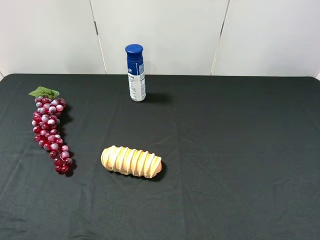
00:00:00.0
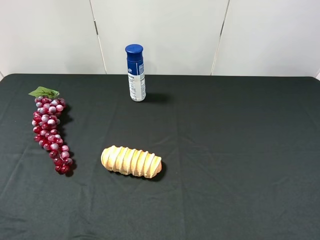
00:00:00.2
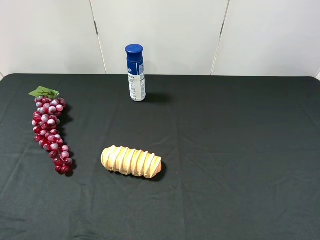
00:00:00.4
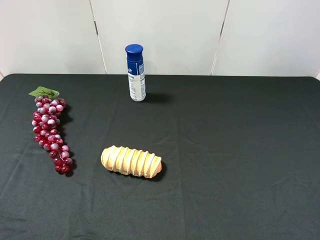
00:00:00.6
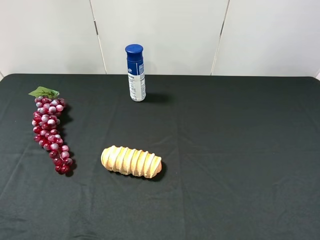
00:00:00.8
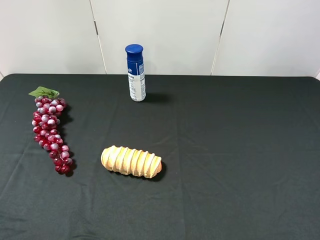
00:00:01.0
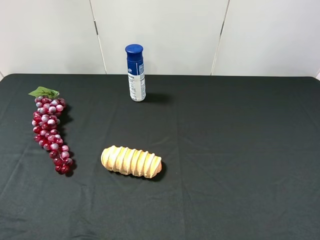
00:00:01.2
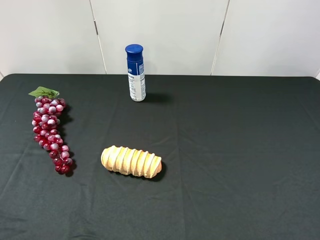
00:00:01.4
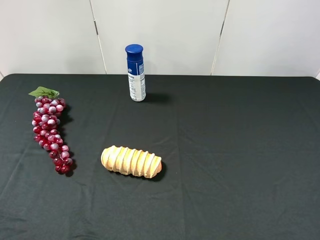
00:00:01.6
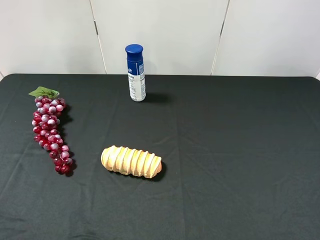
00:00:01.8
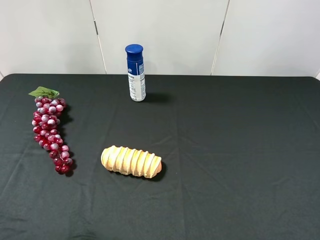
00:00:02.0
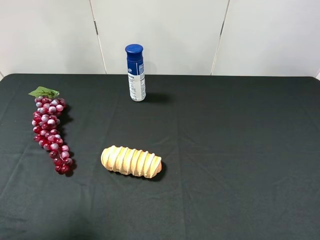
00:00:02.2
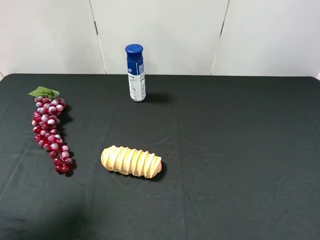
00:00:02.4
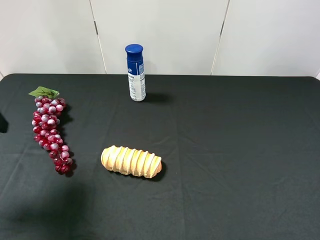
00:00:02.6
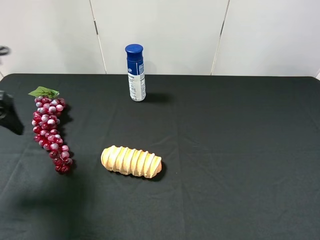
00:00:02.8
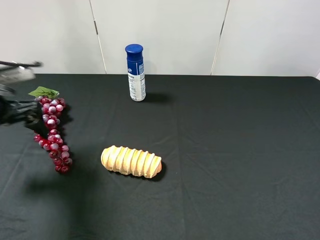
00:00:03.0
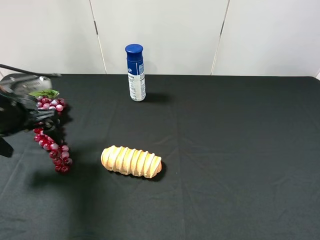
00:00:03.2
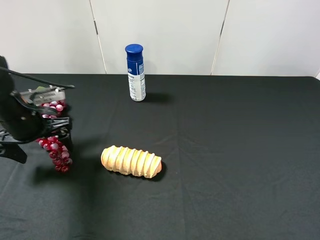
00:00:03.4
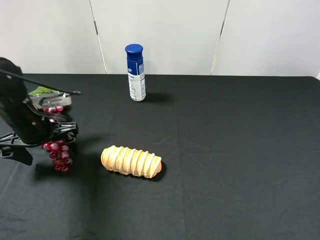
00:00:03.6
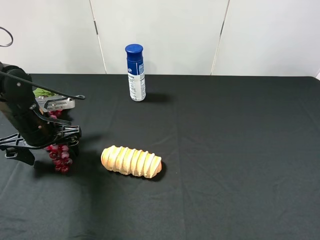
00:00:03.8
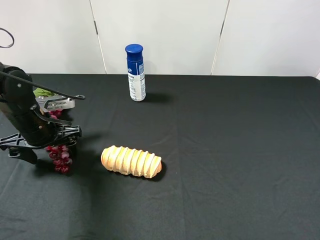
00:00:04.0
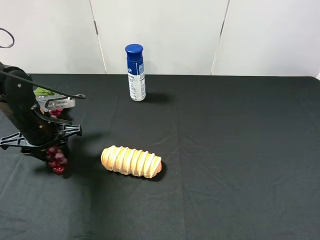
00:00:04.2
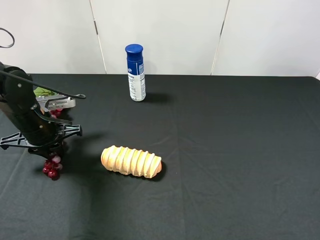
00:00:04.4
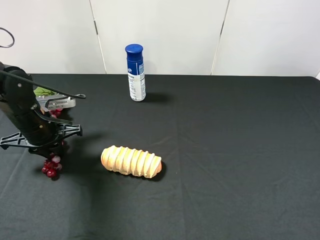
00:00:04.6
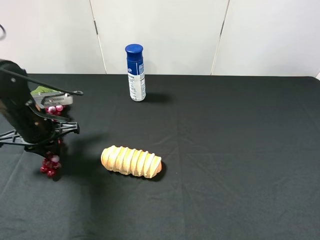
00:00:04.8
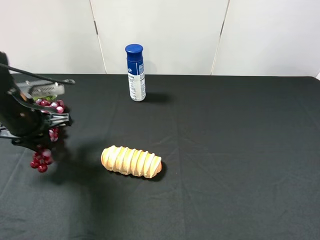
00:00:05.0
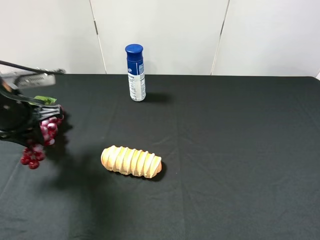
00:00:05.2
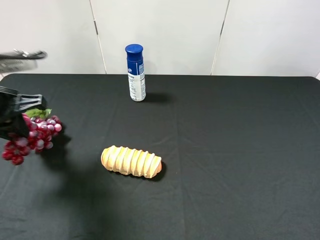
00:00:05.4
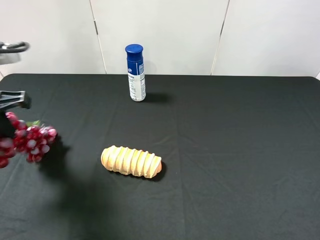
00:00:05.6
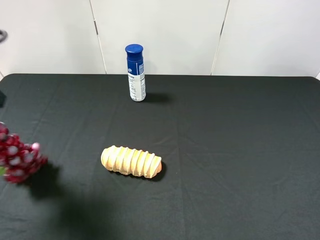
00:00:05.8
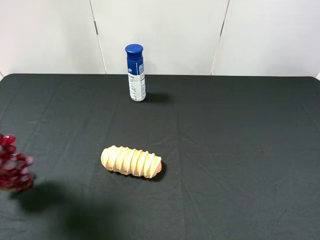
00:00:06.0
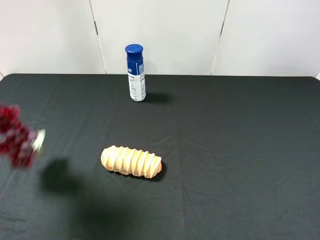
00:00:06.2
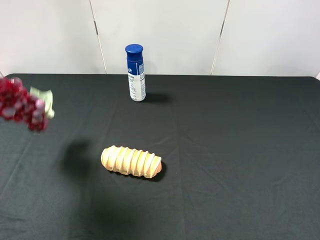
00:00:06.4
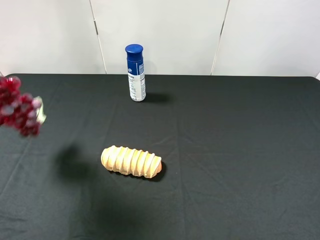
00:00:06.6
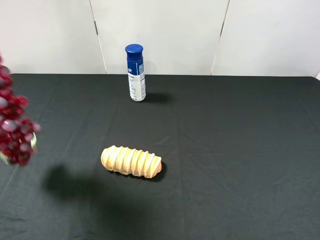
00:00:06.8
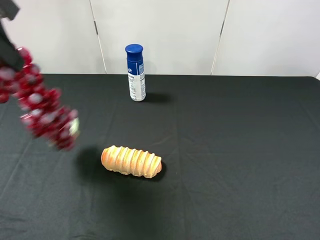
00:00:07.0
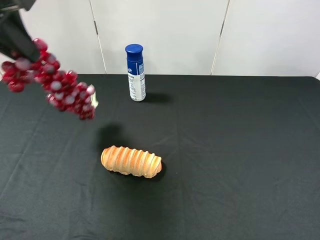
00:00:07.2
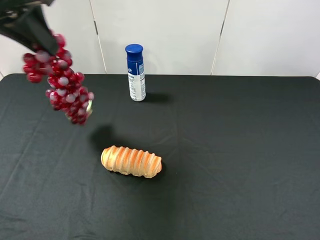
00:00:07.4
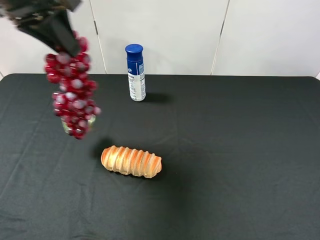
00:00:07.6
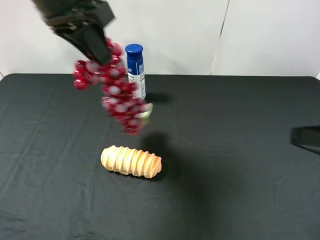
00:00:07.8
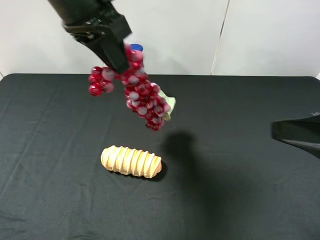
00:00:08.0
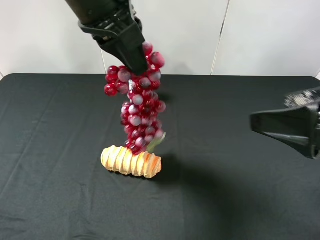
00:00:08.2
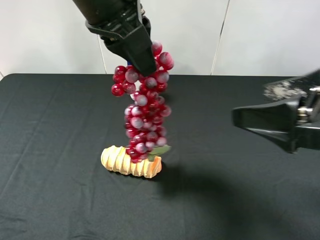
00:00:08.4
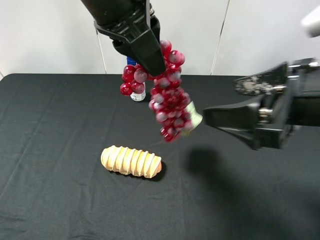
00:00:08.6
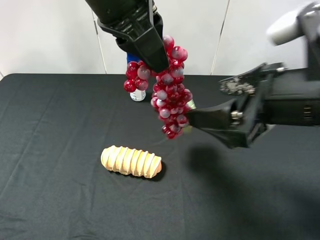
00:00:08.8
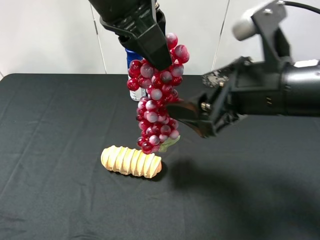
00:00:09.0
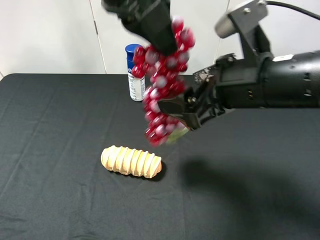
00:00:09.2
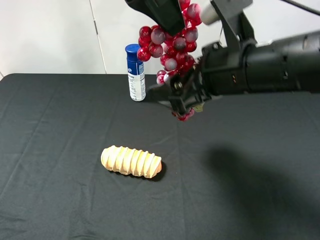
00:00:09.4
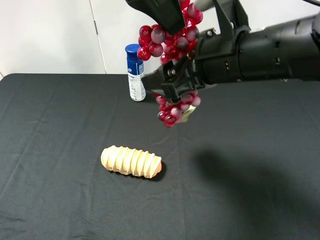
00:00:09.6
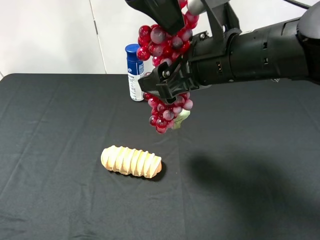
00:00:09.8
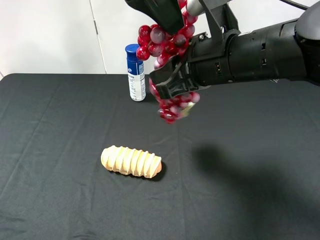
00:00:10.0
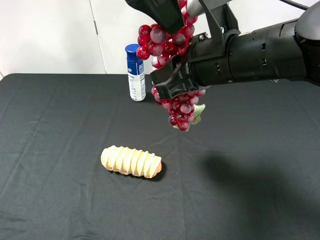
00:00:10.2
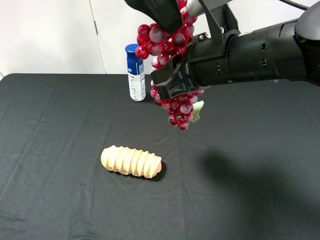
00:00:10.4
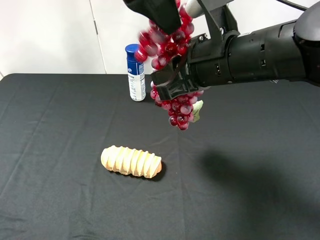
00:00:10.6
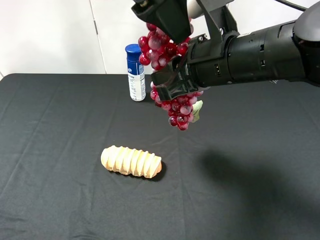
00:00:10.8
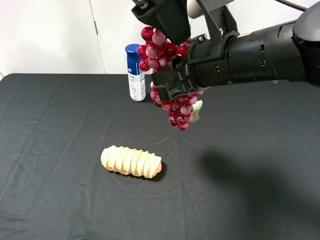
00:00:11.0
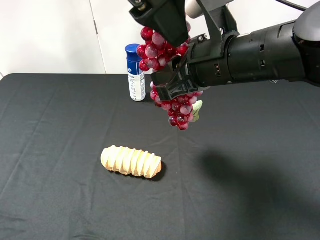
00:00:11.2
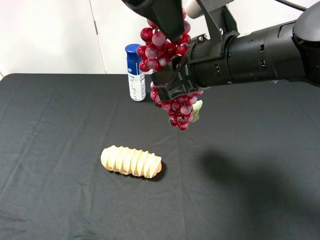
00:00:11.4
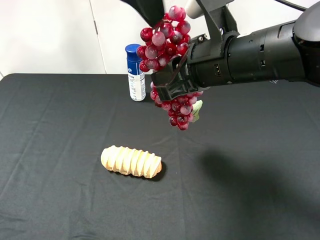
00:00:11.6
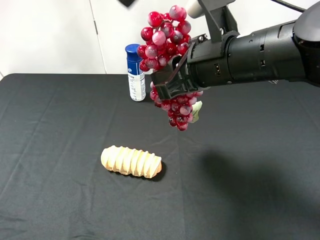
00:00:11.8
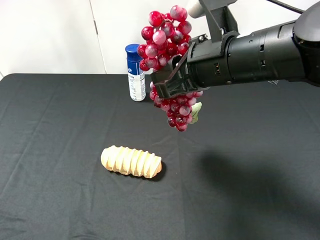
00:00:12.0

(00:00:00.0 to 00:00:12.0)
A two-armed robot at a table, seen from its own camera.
Task of the whole recording: use the left gripper to pick up the item and transfer it from the left gripper to the right gripper.
00:00:01.6 - 00:00:03.0: The left gripper shifts roughly 25 cm forward and downward.
00:00:03.0 - 00:00:04.4: The left gripper heads downward, covering about 10 cm, and closes.
00:00:04.4 - 00:00:06.0: The left gripper moves upward and backward, some 25 cm.
00:00:06.0 - 00:00:07.6: The right gripper shifts by about 5 cm. Meanwhile the left gripper moves to the right and forward, roughly 15 cm.
00:00:07.6 - 00:00:09.0: The right gripper heads to the left and forward, covering approximately 20 cm; the left gripper moves to the right, roughly 10 cm.
00:00:09.0 - 00:00:10.4: The right gripper moves roughly 5 cm, and closes up.
00:00:10.4 - 00:00:12.0: The left gripper moves to the left and upward, some 10 cm, and opens up.

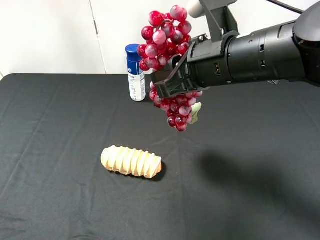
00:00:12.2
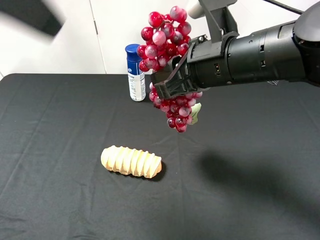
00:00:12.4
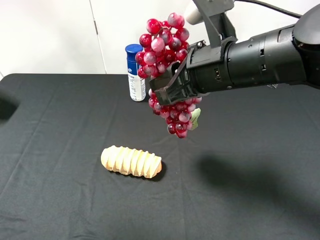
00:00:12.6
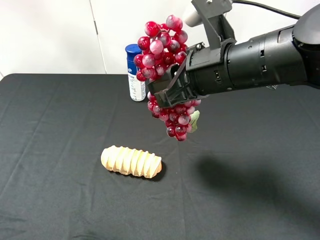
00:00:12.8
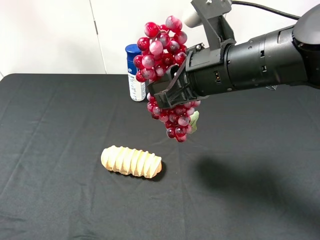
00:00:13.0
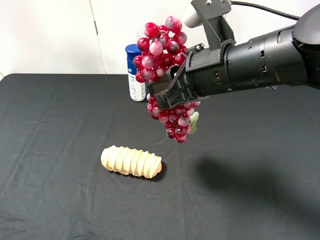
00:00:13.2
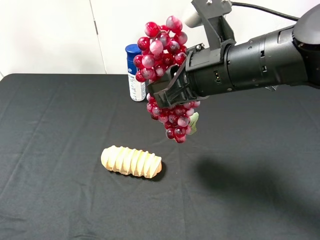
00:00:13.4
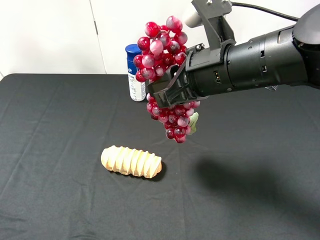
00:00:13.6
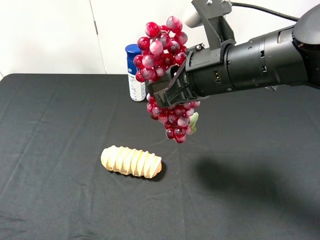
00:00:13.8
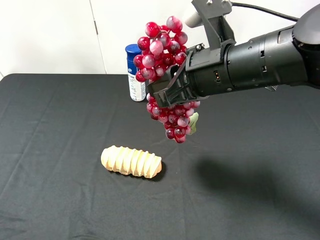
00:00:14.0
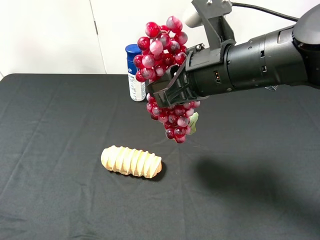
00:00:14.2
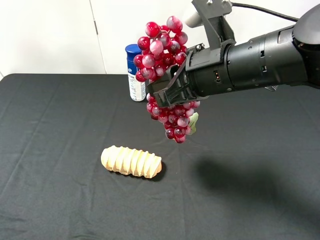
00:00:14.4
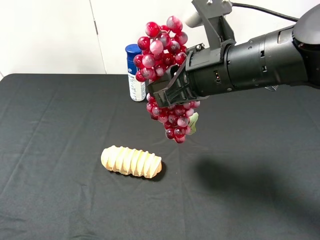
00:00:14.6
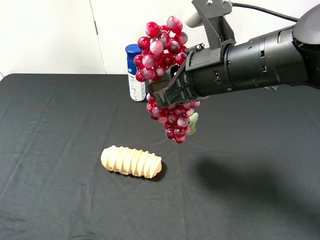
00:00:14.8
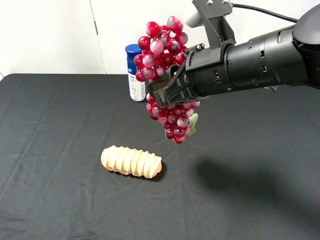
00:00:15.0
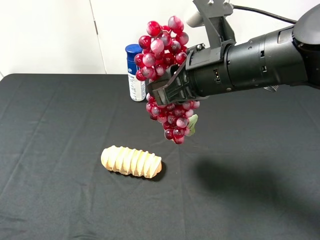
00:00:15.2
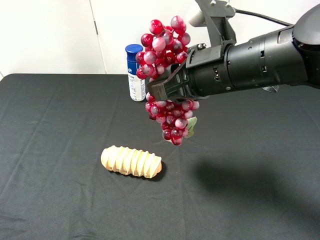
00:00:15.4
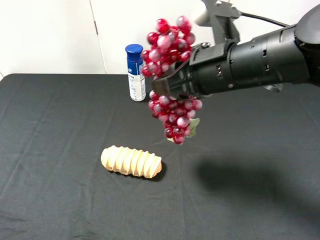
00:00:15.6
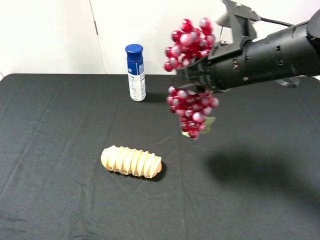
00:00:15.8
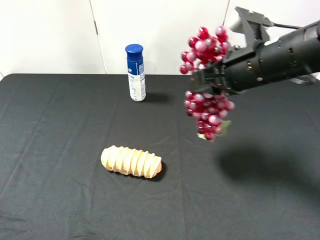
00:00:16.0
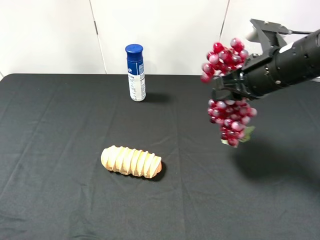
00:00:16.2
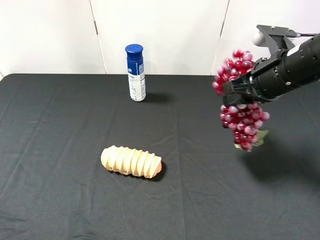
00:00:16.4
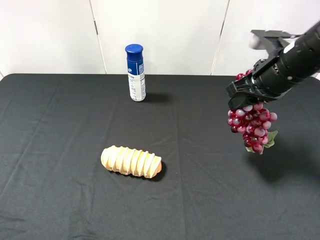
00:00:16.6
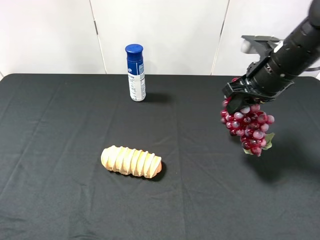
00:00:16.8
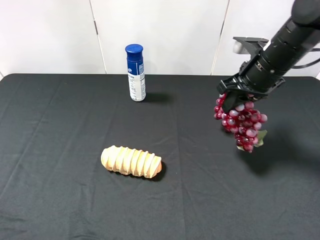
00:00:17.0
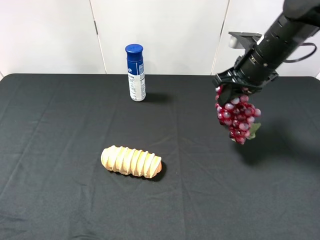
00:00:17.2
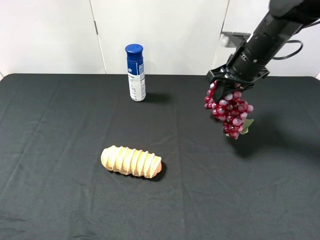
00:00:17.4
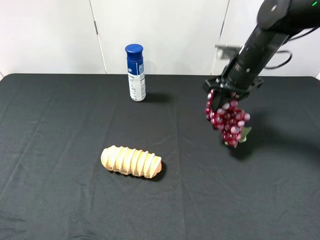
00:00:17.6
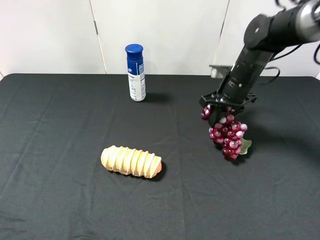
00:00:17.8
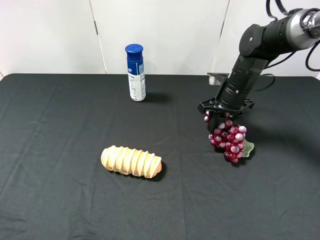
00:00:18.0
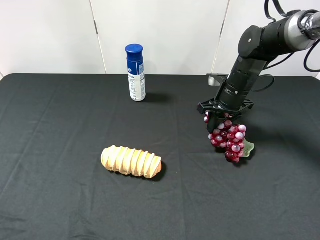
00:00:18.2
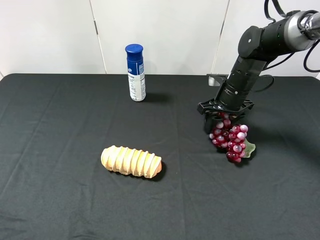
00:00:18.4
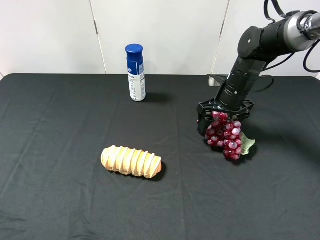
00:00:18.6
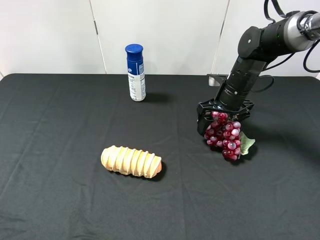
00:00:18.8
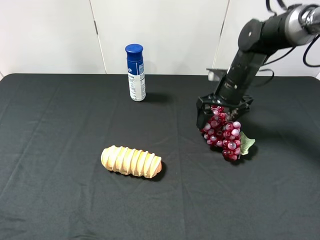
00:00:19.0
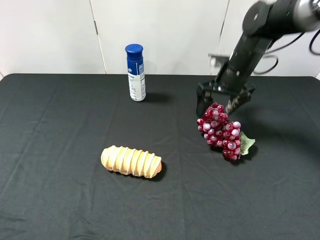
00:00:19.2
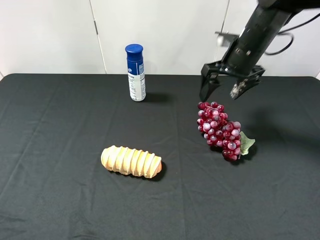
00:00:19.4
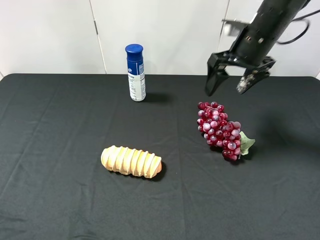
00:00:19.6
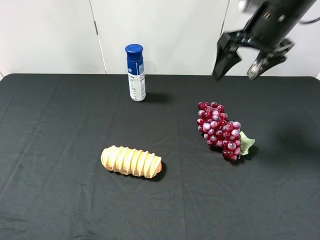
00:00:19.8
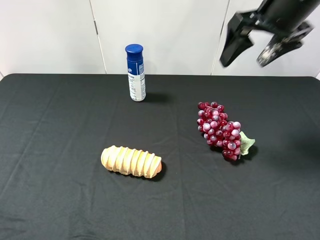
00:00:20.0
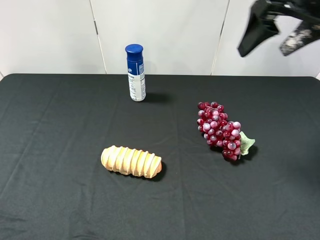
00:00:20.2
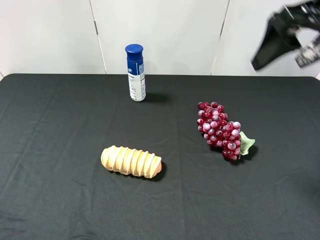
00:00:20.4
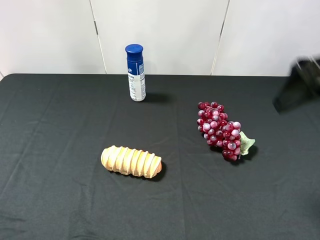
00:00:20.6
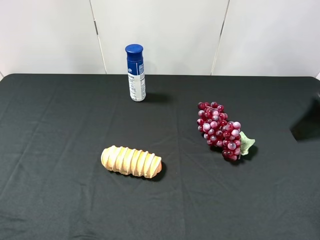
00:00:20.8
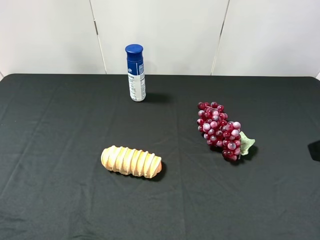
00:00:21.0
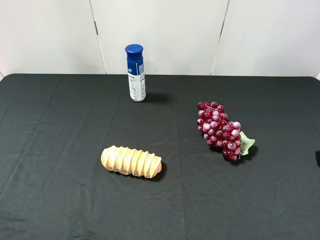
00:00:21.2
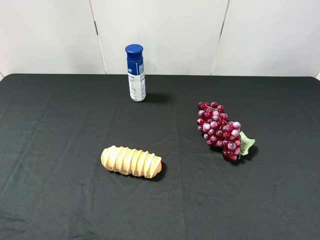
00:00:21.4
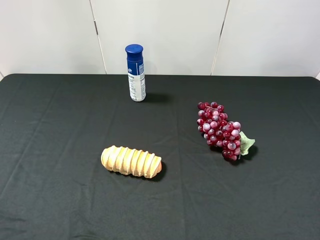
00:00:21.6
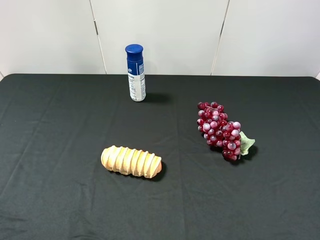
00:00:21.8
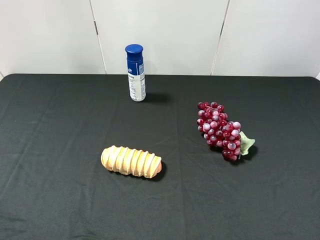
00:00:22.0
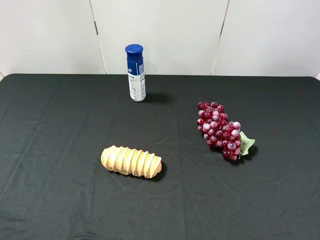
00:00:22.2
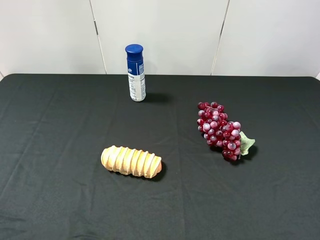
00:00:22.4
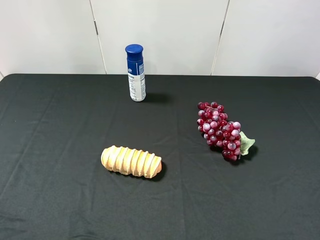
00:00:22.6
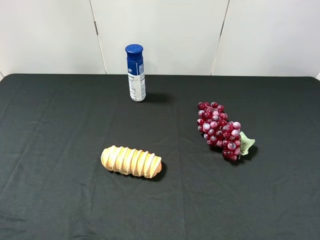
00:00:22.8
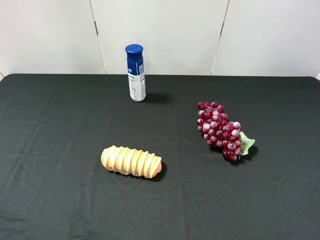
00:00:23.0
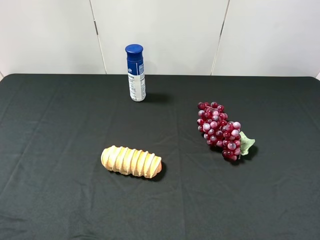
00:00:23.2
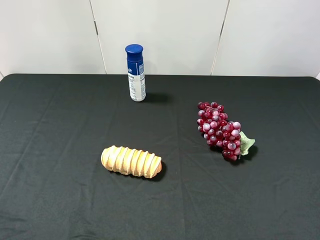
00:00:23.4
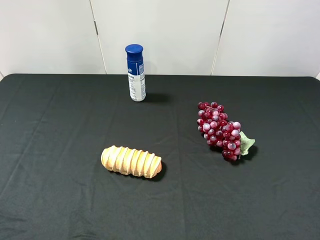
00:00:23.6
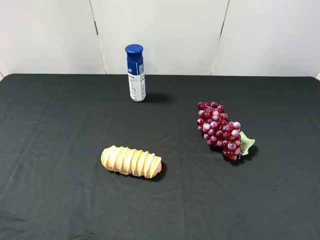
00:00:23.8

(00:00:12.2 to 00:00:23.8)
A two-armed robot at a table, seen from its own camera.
Task of the whole recording: use the left gripper to pick up the item and transfer it from the left gripper to the right gripper.
00:00:12.2 - 00:00:13.6: The left gripper travels downward, backward and to the left by about 30 cm.
00:00:15.0 - 00:00:16.6: The right gripper travels to the right and forward by some 15 cm.
00:00:16.6 - 00:00:18.0: The right gripper heads downward and forward, covering some 15 cm.
00:00:18.0 - 00:00:19.4: The right gripper shifts approximately 10 cm upward, and opens its fingers.
00:00:19.4 - 00:00:21.0: The right gripper travels backward by about 30 cm.
